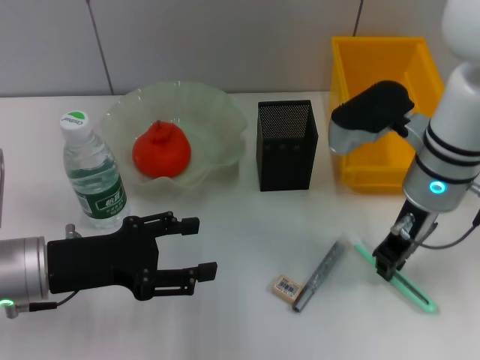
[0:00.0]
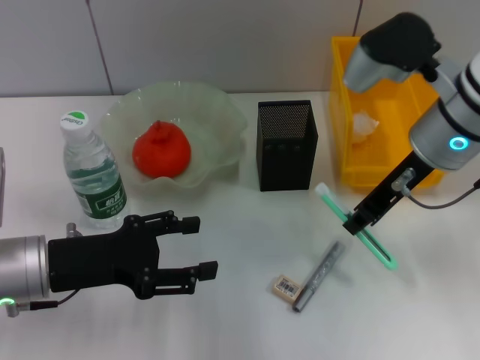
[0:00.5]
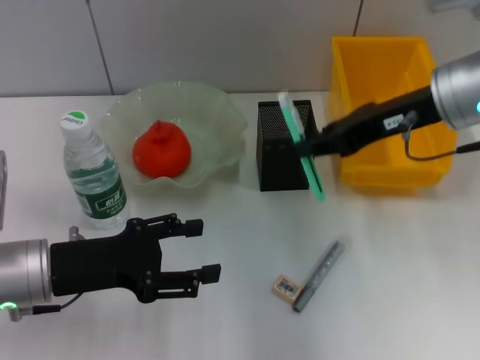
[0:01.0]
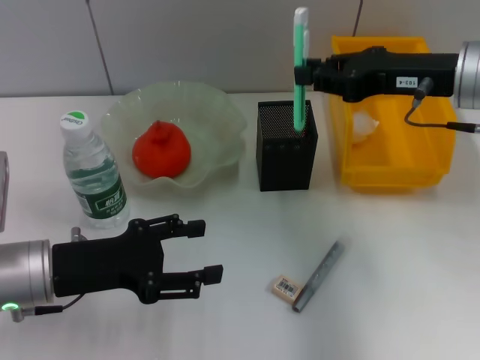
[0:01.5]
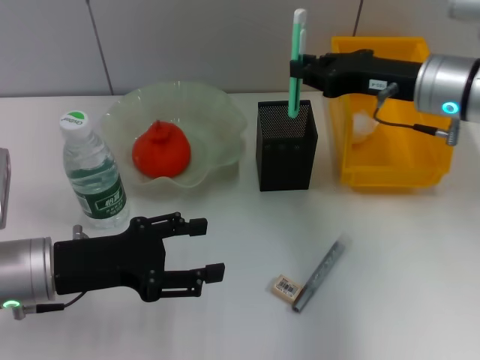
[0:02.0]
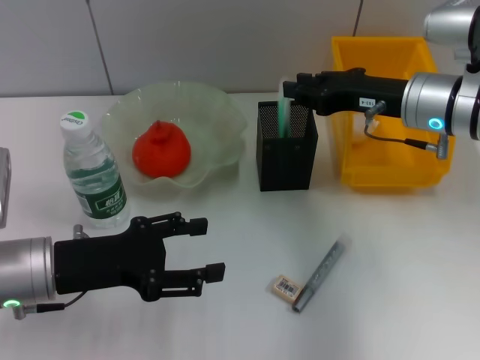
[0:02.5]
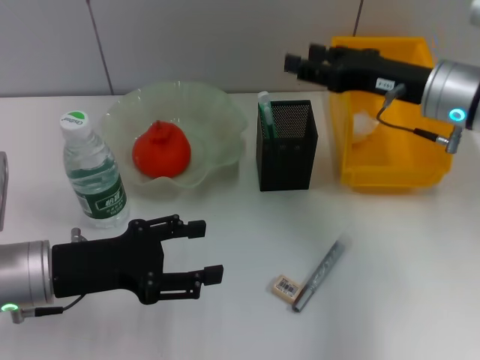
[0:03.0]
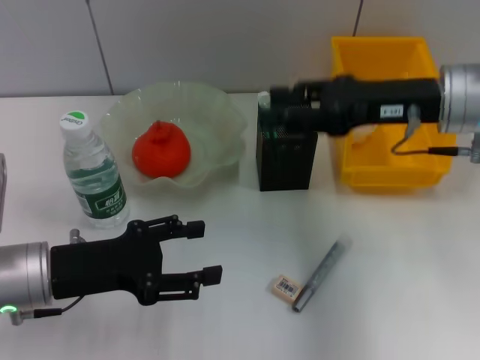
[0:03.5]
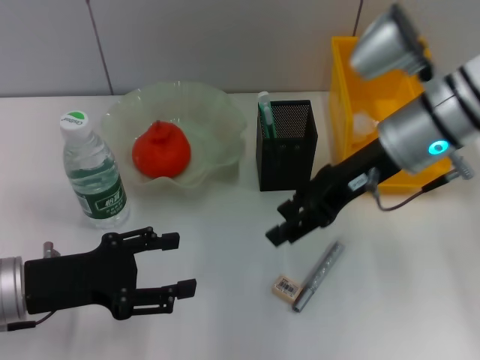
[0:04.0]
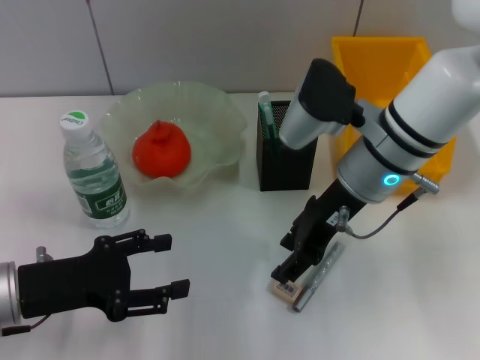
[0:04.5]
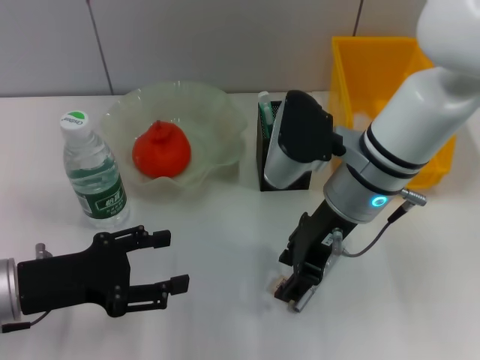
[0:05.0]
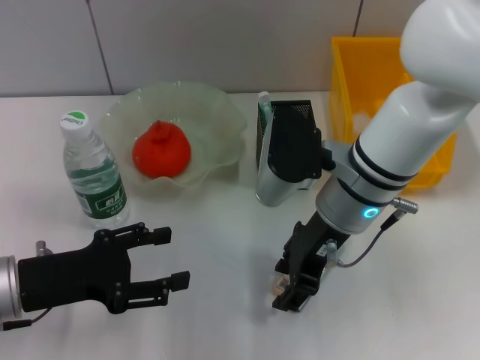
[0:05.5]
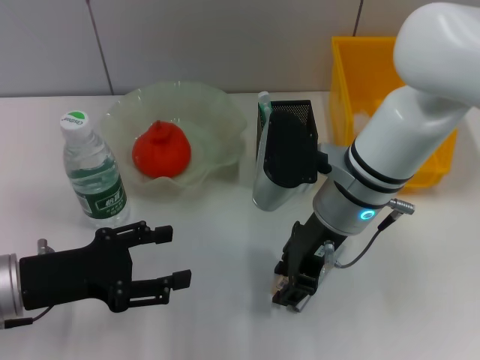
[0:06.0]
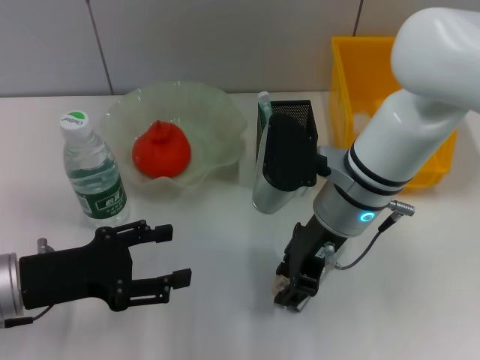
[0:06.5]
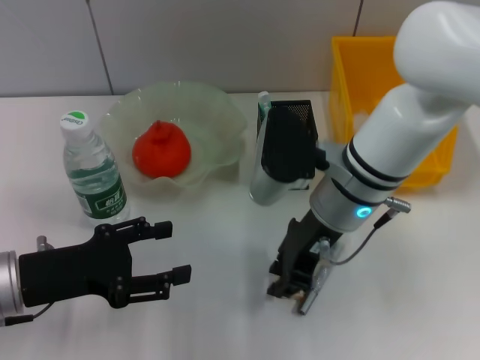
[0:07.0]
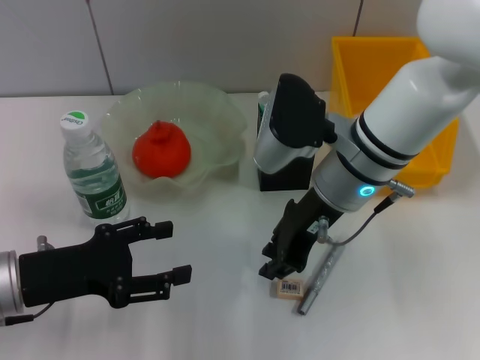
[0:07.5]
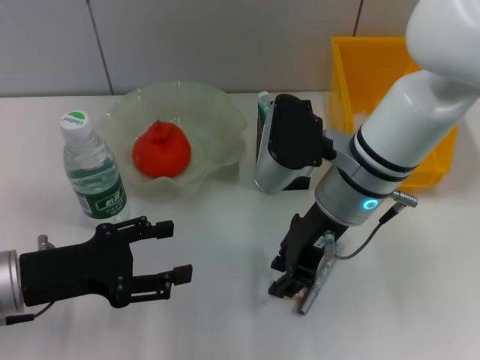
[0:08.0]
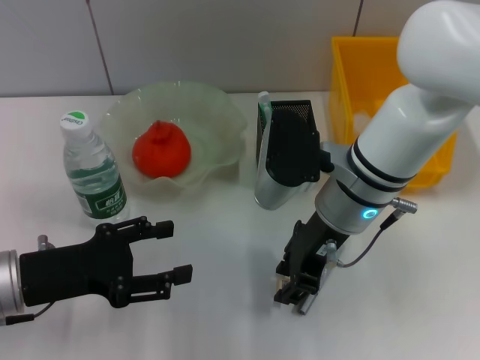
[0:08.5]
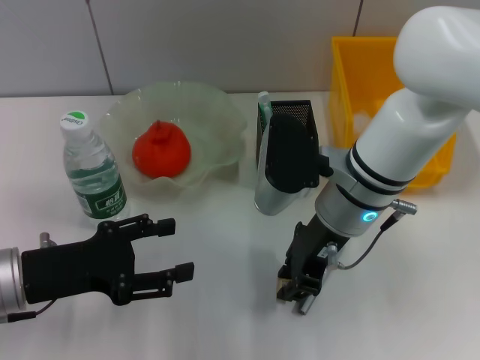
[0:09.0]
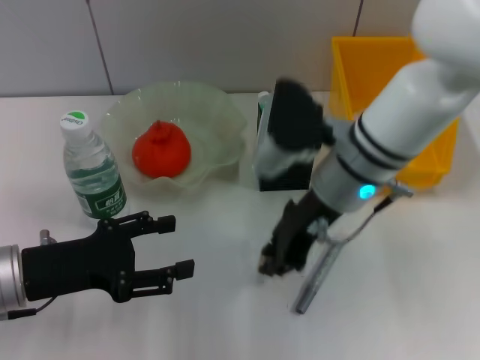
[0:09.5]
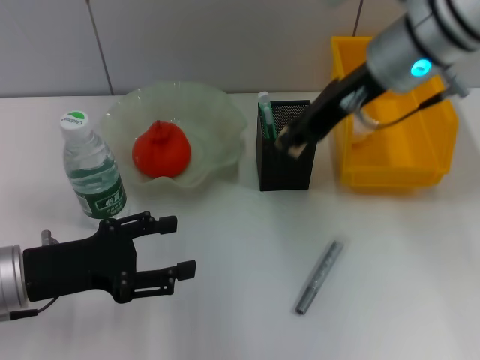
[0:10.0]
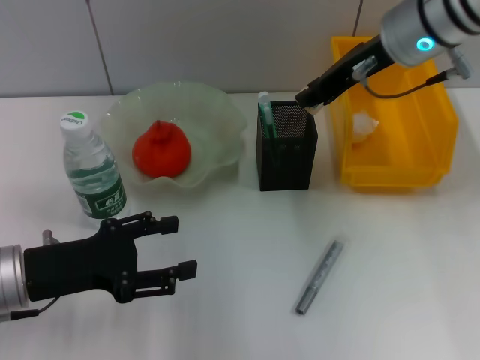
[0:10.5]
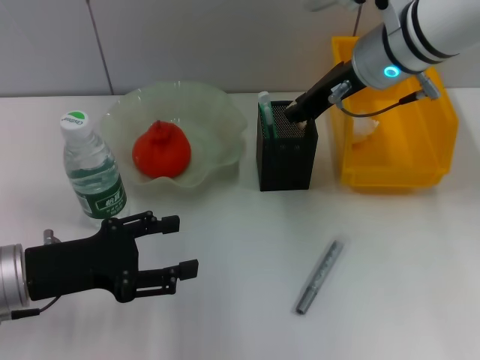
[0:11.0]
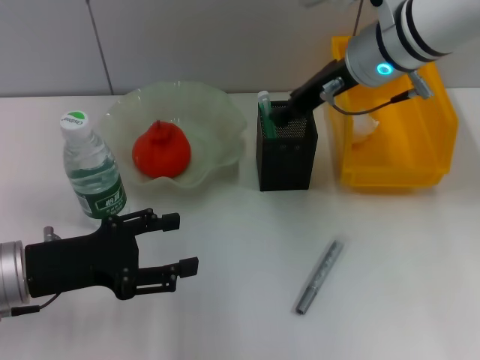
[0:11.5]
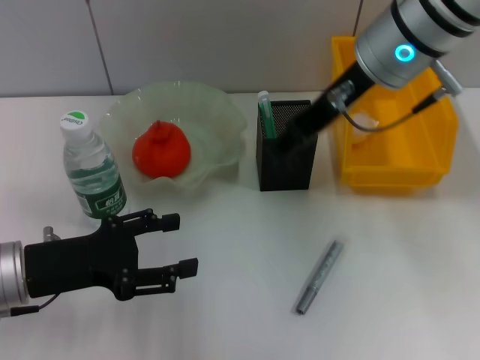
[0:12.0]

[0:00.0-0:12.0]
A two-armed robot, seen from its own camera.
Step, 0:00.0 to 0:03.0: Place the blue utility knife into the pen holder with the right hand.
Step, 0:03.5 to 0:08.5: Grab the eraser with the right hand.
Step, 0:09.5 to 0:11.5: Put the eraser into the pen holder with the right hand.
0:00.0 to 0:02.0: The right gripper travels upward and back again, about 10 cm each way.
0:02.0 to 0:04.0: The right gripper moves roughly 5 cm, and opens up.
0:04.0 to 0:06.0: The right gripper travels to the left and downward by some 10 cm.
0:06.0 to 0:08.0: The right gripper closes up.
0:08.0 to 0:10.0: The right gripper goes about 10 cm upward and forward.
0:10.0 to 0:12.0: The right gripper opens up.

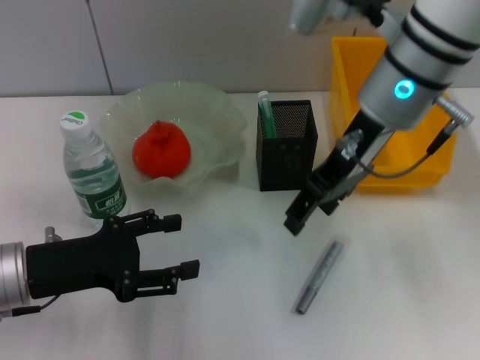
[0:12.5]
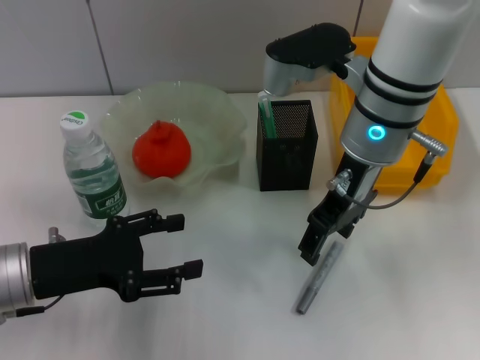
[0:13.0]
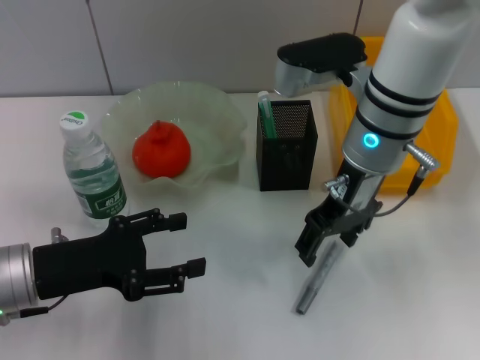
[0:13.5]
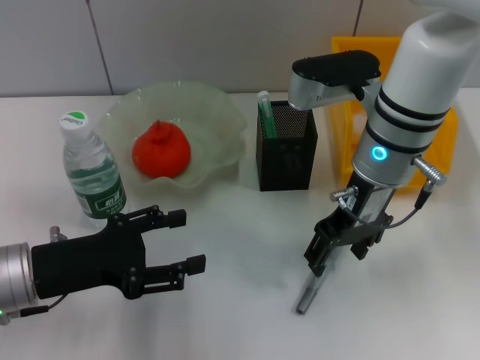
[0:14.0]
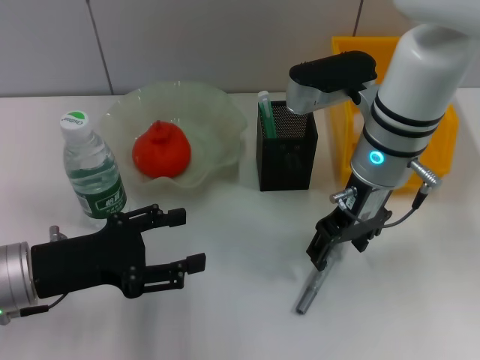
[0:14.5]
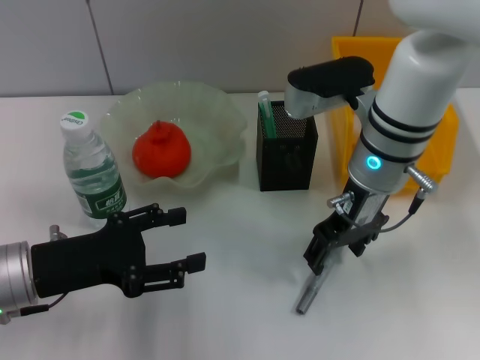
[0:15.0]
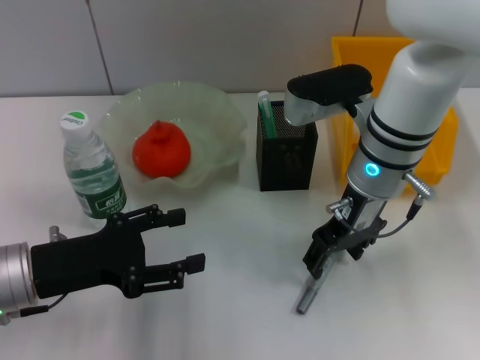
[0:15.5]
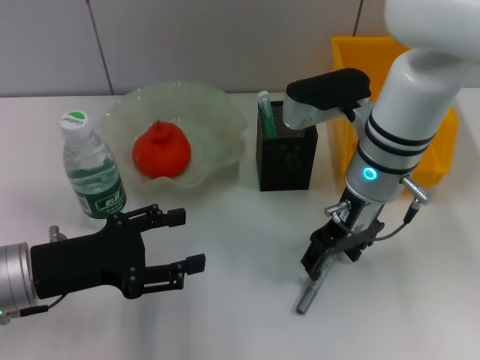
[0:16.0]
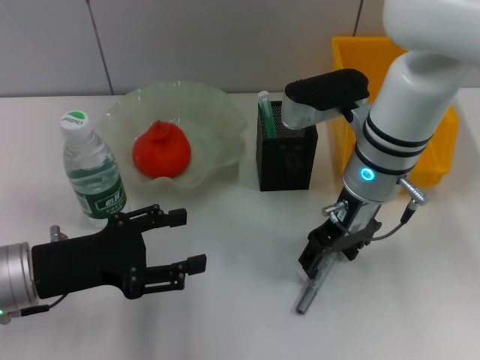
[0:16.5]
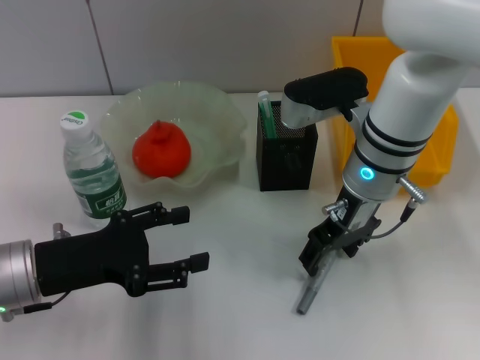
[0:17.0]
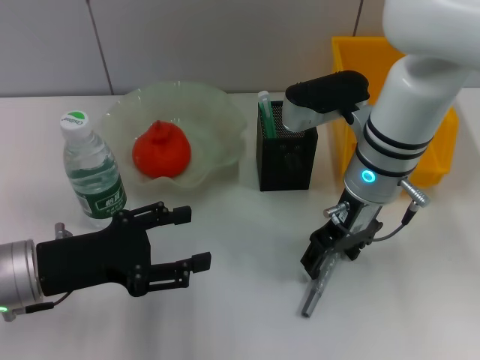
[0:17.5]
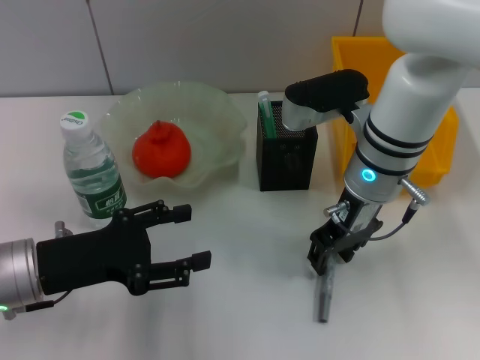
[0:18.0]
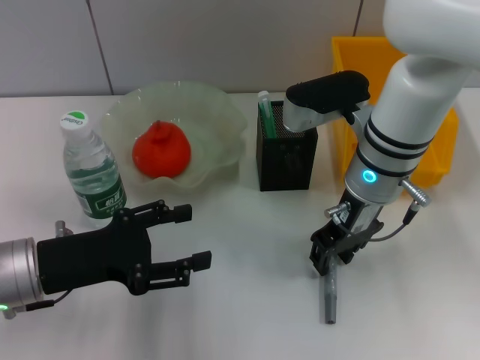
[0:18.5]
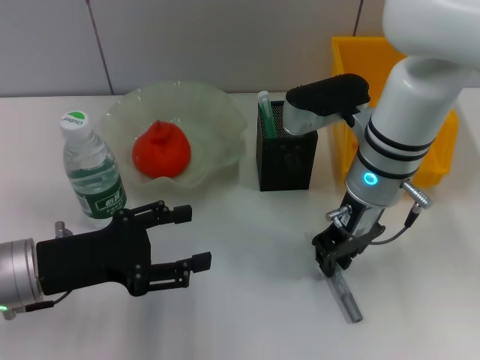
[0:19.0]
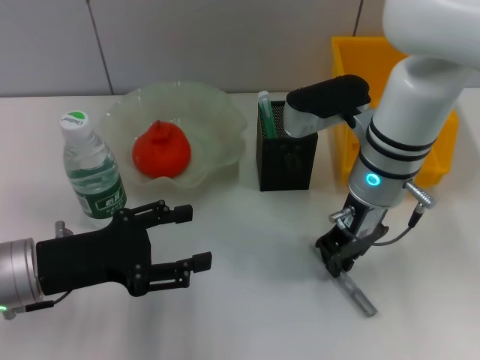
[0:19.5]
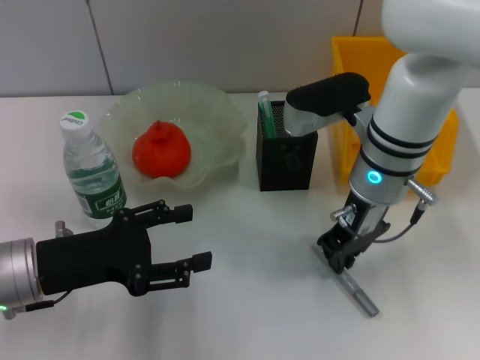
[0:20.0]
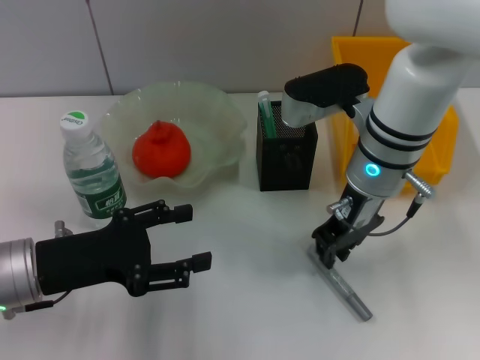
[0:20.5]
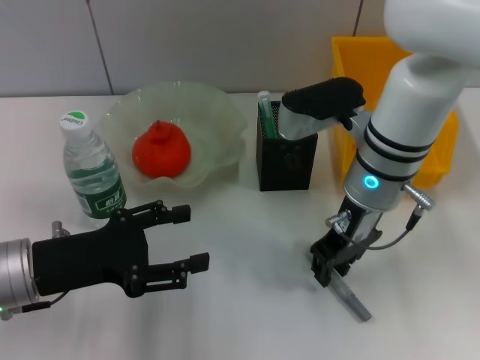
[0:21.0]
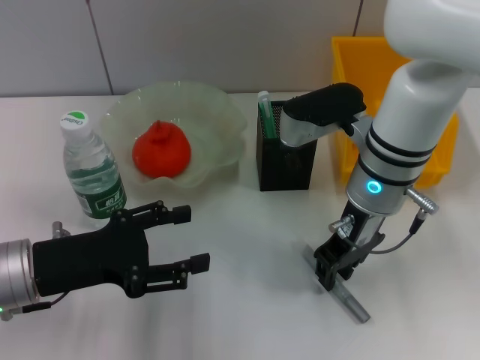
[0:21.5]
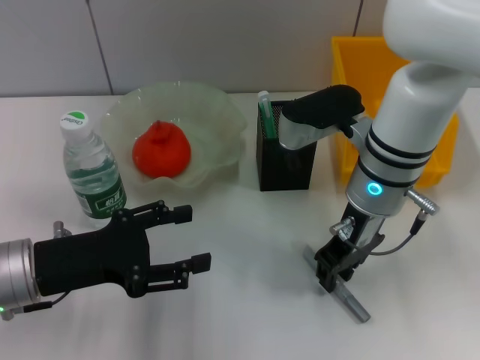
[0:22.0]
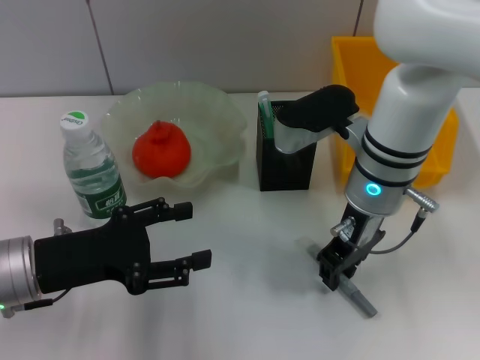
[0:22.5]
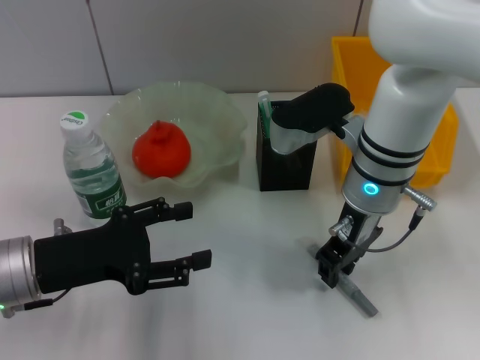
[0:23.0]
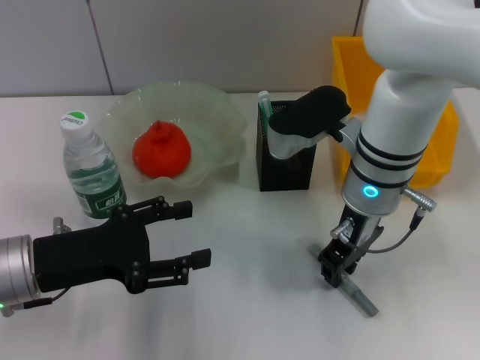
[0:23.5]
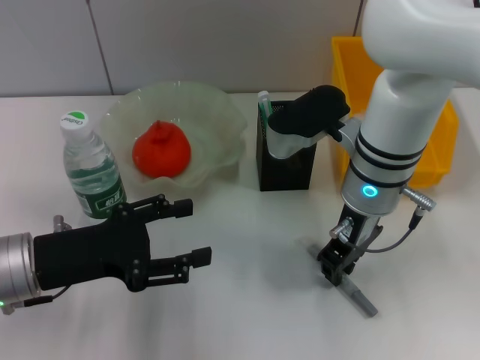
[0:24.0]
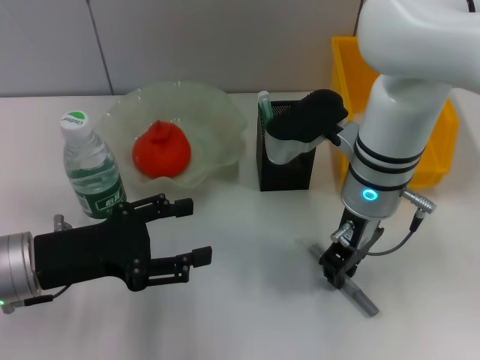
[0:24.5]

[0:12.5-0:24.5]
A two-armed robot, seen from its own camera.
0:12.5 to 0:14.5: The right gripper heads downward, covering roughly 5 cm.
0:14.5 to 0:16.5: The grippers stay close to where they were, moving slightly.
0:16.5 to 0:18.5: The right gripper closes its fingers.
0:18.5 to 0:20.5: The right gripper closes up.
0:20.5 to 0:24.5: There are only small adjustments of the grippers.

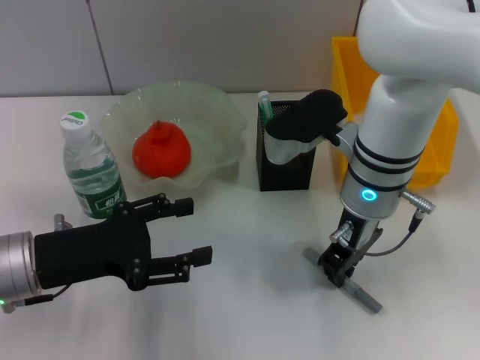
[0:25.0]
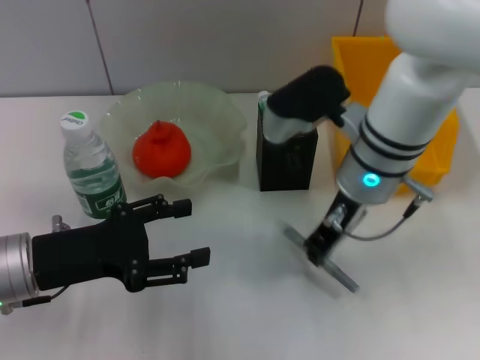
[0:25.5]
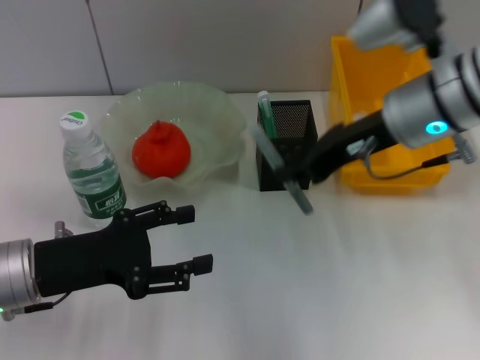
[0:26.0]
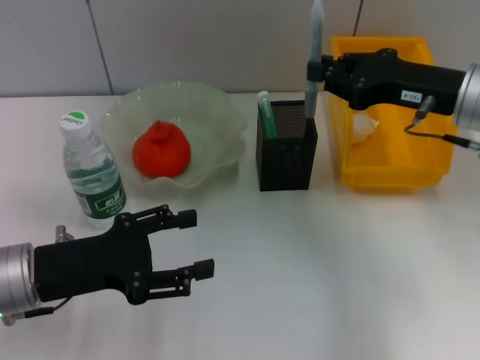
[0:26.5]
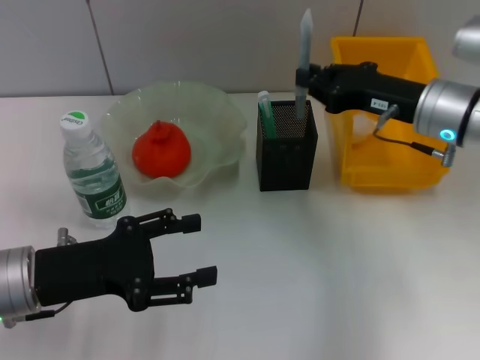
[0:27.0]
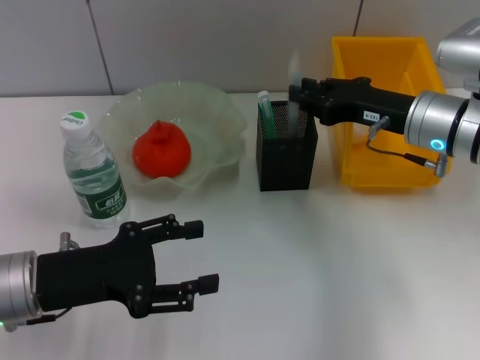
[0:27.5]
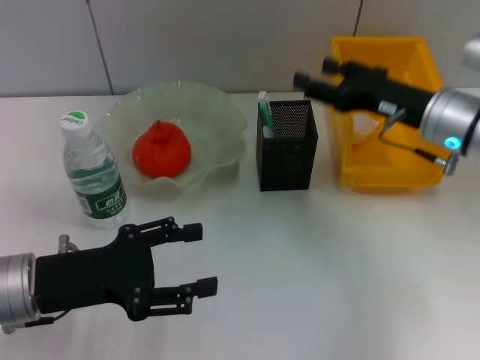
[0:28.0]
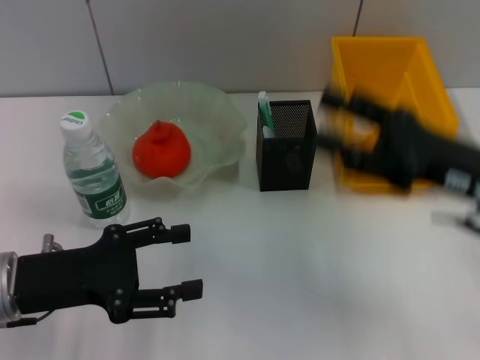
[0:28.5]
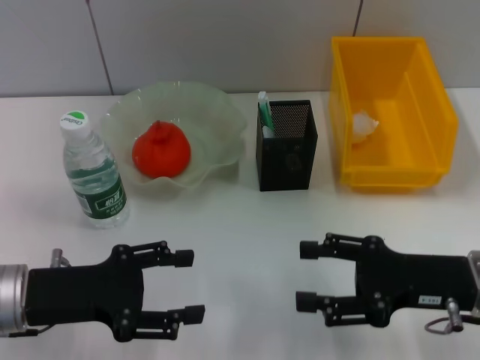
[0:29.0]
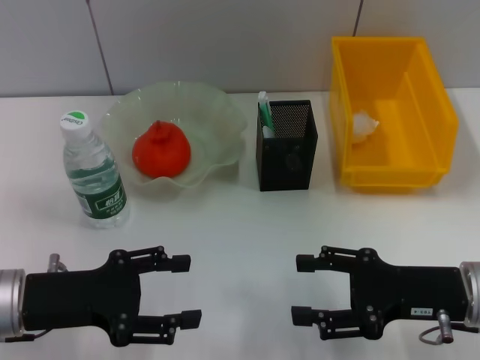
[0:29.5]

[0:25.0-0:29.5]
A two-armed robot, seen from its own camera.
Step, 0:25.5 to 0:27.5: Place the gray glue into the pen holder with the right hand.
0:25.0 to 0:27.0: The right gripper shifts approximately 10 cm to the right.
0:27.0 to 0:29.5: The right gripper travels backward and downward by roughly 15 cm, and opens up.
